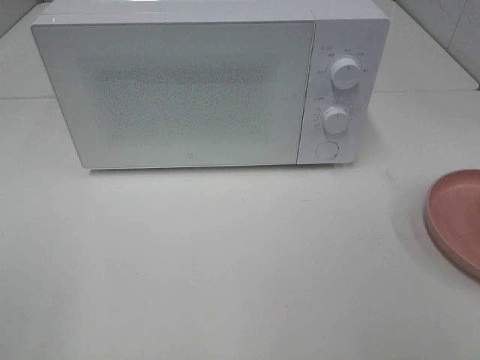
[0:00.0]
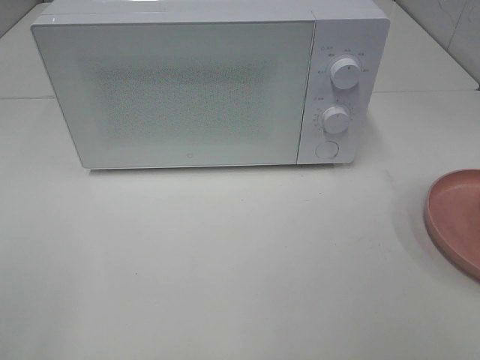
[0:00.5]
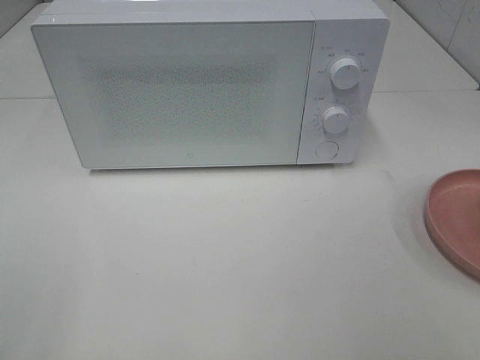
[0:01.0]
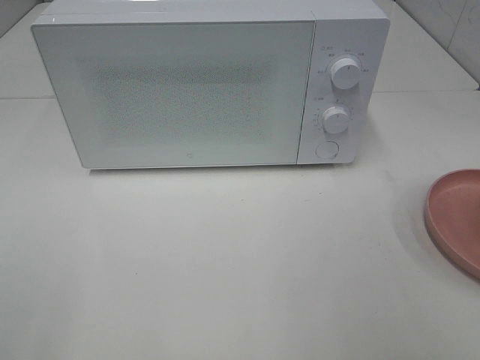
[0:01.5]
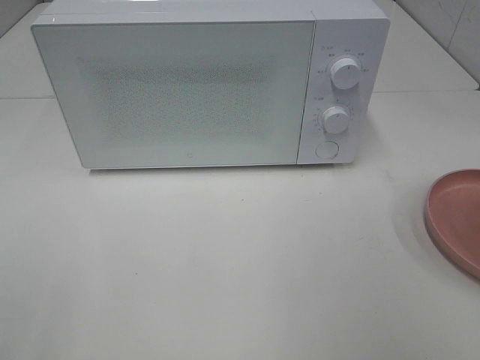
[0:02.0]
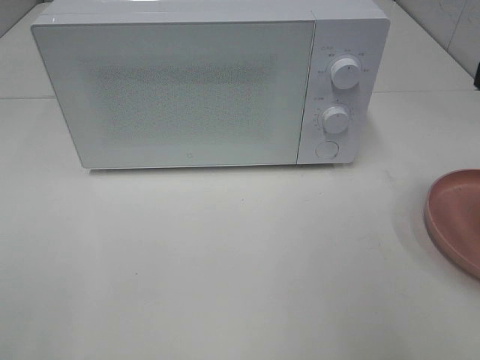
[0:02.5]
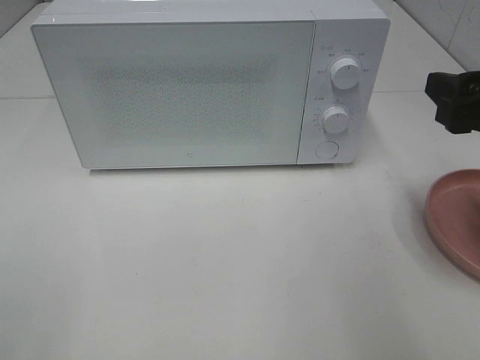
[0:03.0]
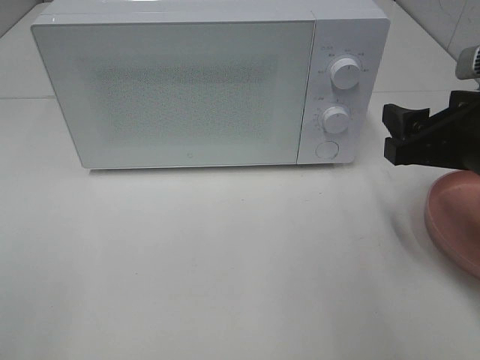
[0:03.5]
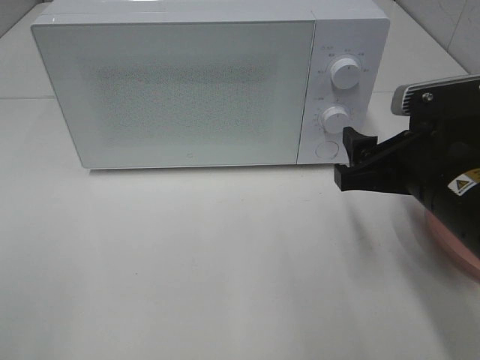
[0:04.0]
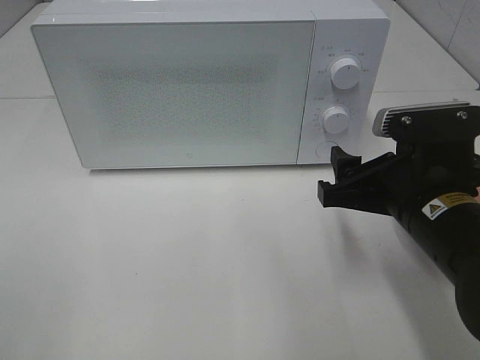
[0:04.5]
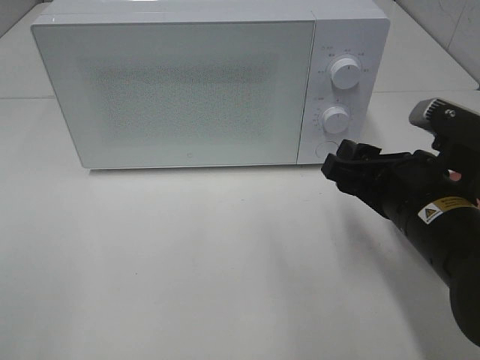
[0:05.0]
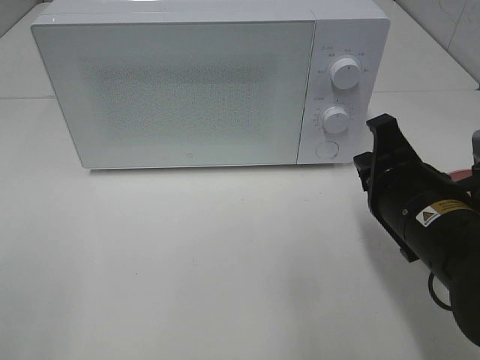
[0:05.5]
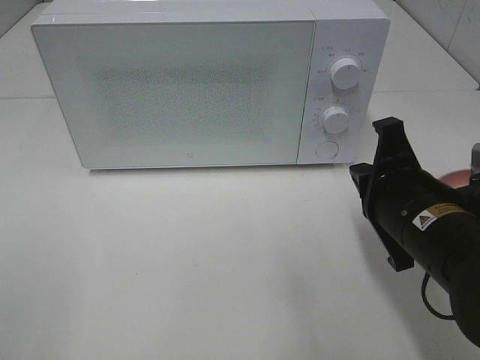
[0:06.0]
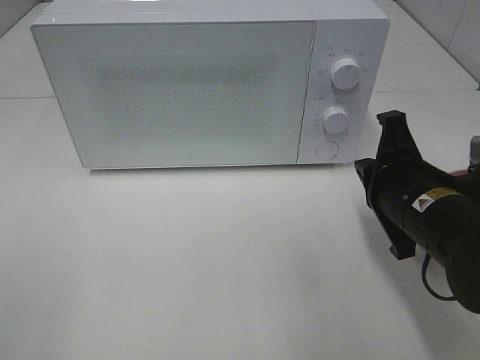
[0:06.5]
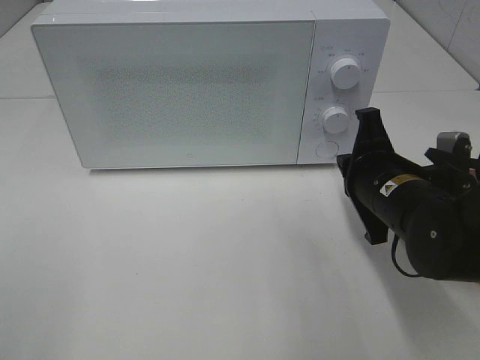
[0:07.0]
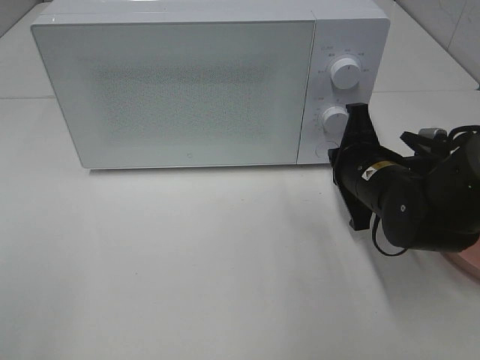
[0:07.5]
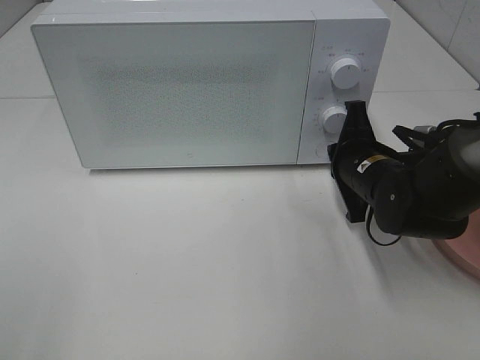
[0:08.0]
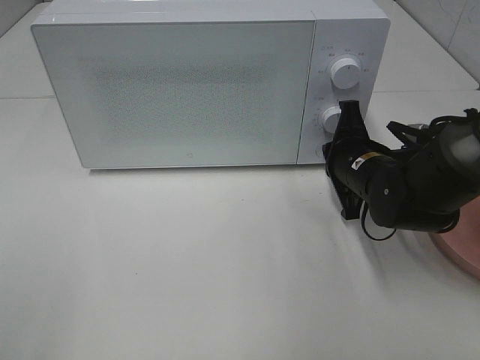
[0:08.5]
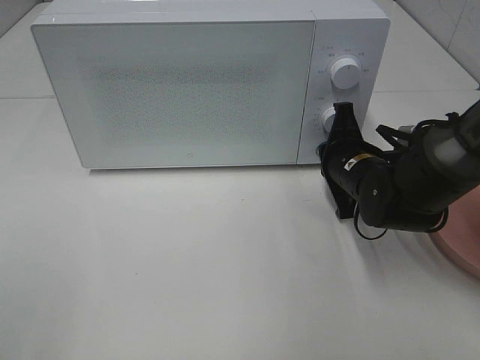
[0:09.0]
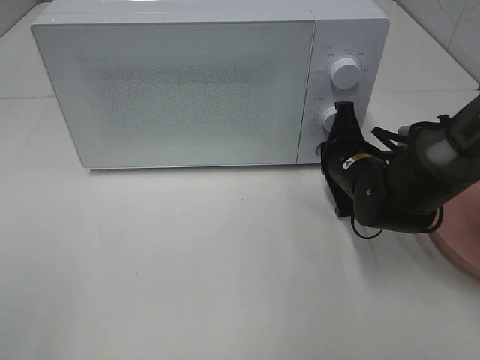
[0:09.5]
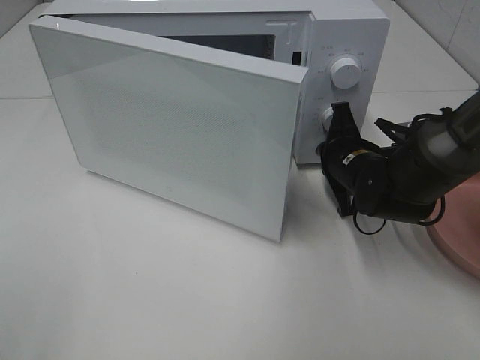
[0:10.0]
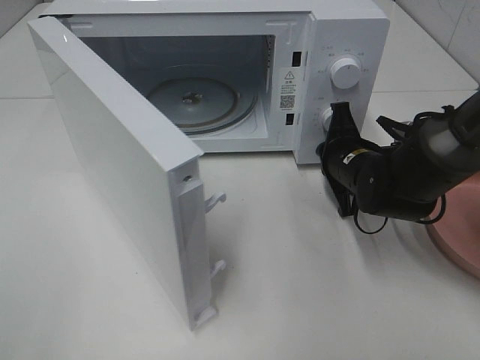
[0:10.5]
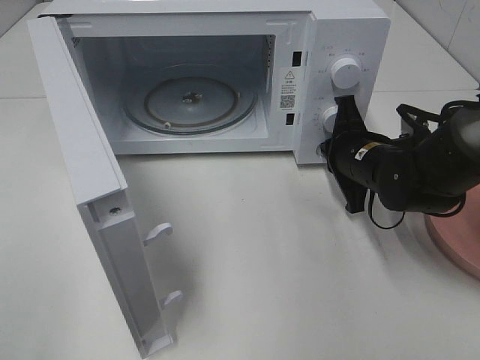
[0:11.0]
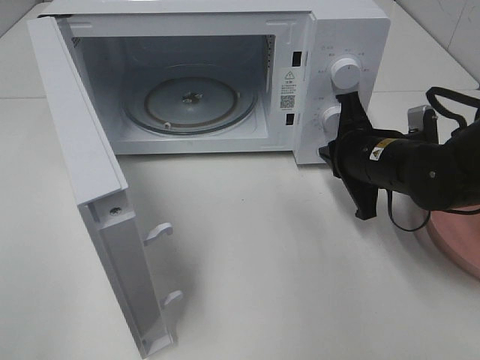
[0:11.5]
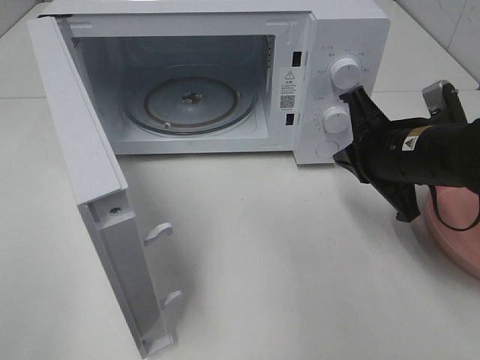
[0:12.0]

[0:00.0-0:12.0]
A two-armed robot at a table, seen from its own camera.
Task of the whole recording: Heat the burger.
Step, 0:00.0 to 0:11.0: Right hand: press the switch.
0:02.0 to 0:04.0: The right gripper shifts about 20 cm downward, forward and to the left.
0:04.0 to 0:06.0: The right gripper closes its fingers.
0:06.0 to 0:08.0: The right gripper goes approximately 15 cm forward and downward.
0:08.0 to 0:10.0: There are only small adjustments of the grippers.
0:10.0 to 0:12.0: The right gripper shifts about 10 cm upward and backward.

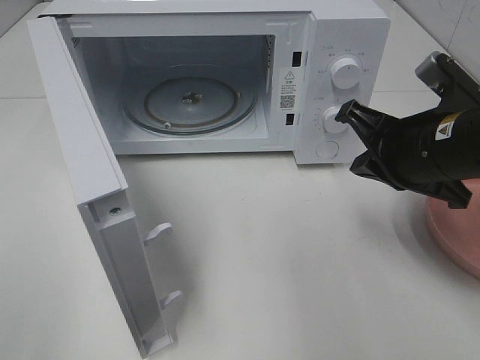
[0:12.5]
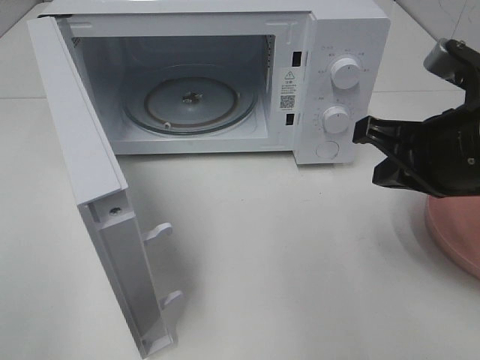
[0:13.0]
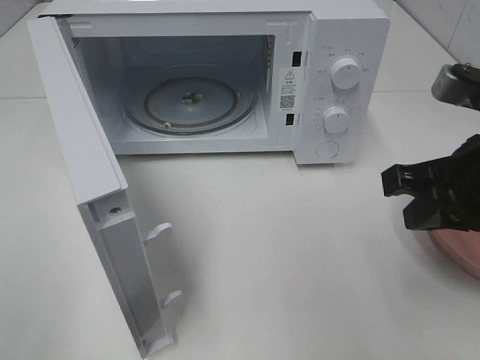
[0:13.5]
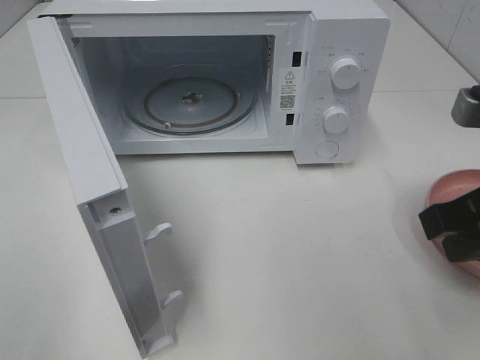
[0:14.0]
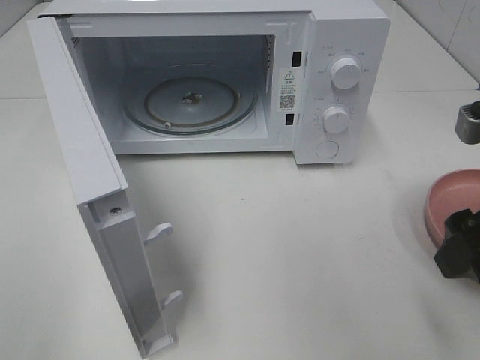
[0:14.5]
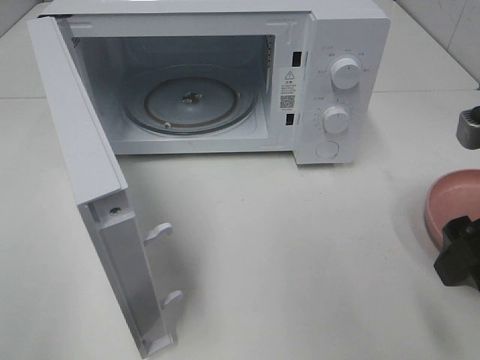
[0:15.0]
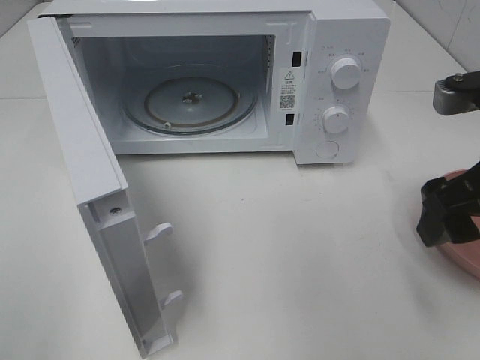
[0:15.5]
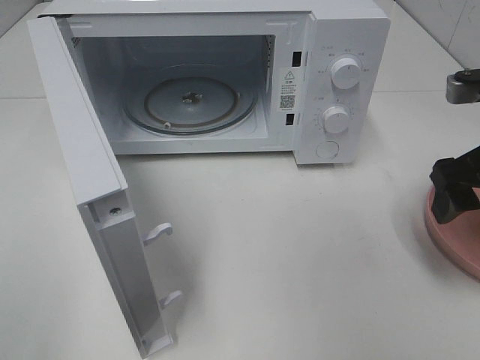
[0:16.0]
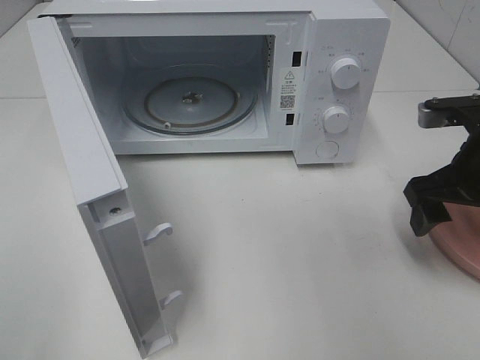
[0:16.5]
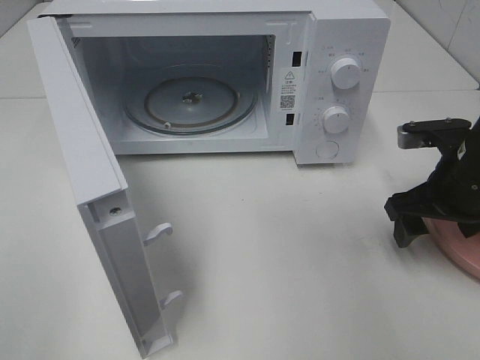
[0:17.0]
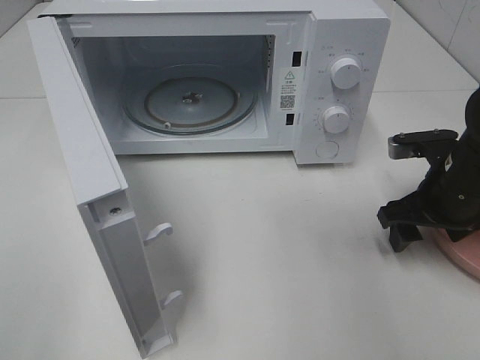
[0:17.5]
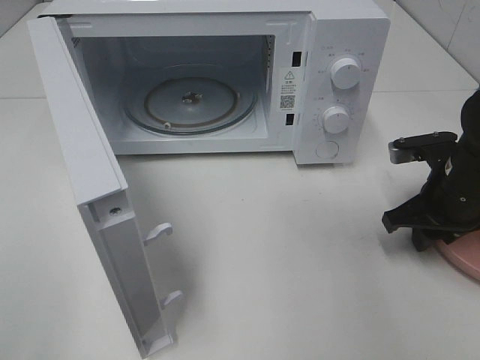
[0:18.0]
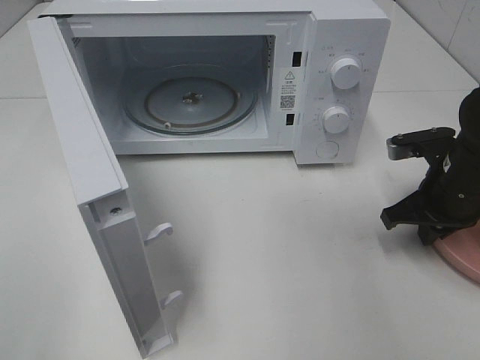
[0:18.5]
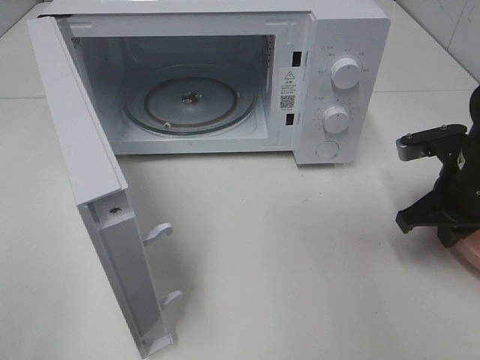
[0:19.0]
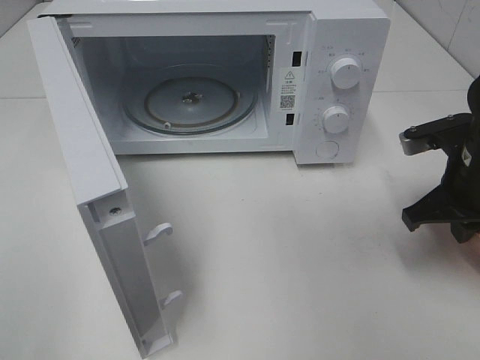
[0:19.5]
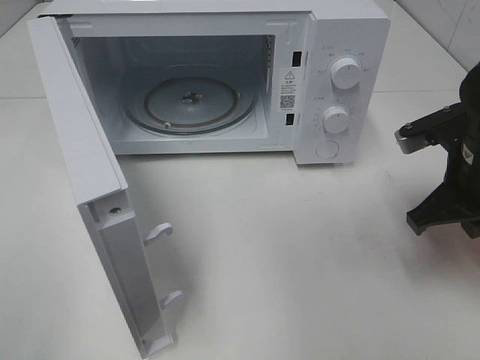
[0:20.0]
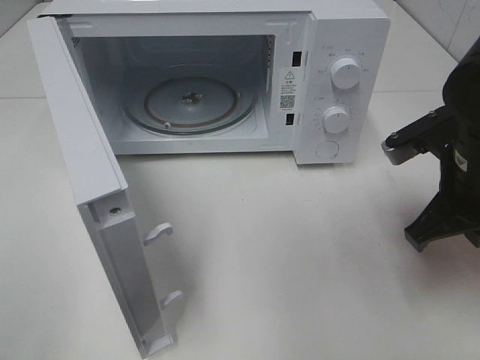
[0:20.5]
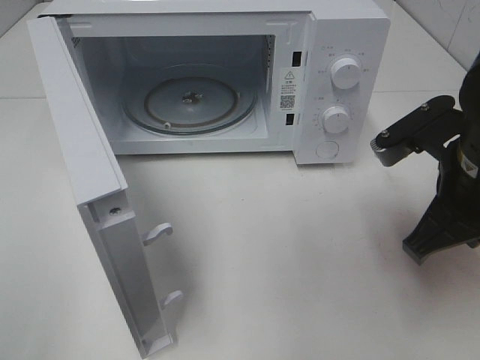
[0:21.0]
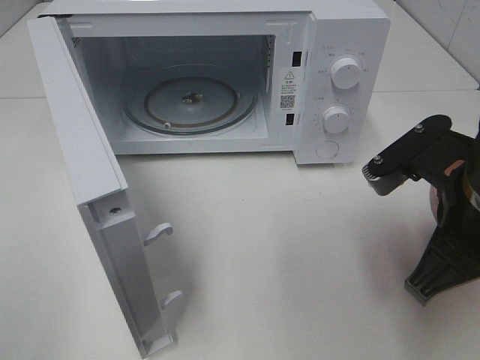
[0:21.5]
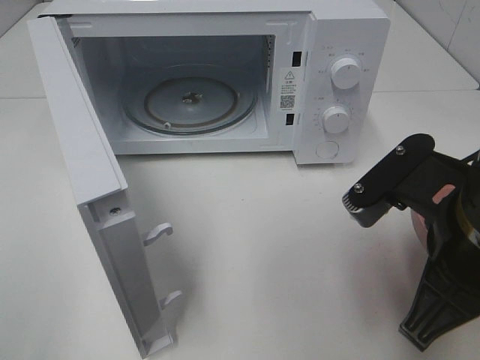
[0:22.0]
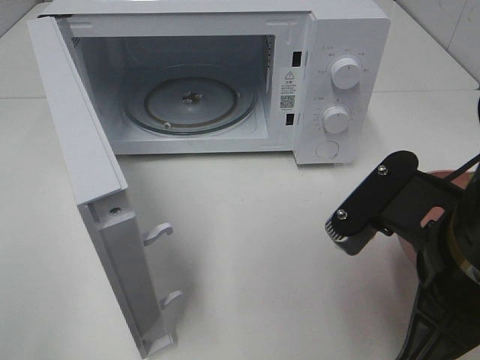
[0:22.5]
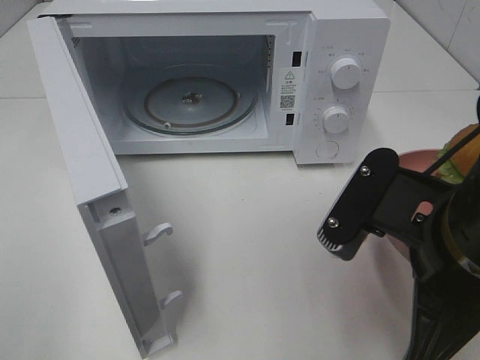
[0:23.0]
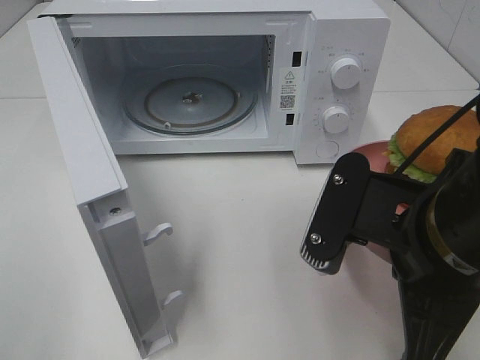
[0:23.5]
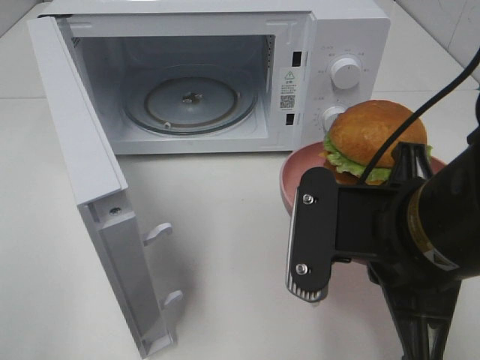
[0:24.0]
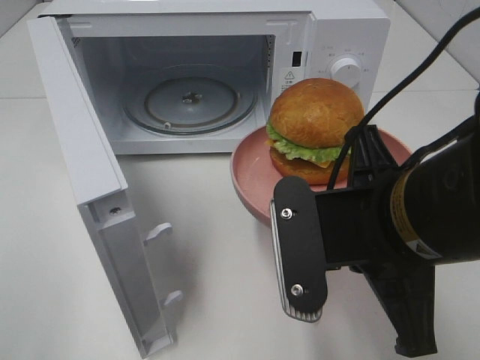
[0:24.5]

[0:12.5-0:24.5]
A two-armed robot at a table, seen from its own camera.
Task of the whole recording: Heat the burger.
Step, 0:12.5 to 0:18.5: Right hand: grab the plate with the hamburger.
0:12.5 to 0:14.5: The right gripper is displaced backward by roughly 10 cm, and opens.
0:14.5 to 0:16.5: The right gripper moves forward and downward, about 10 cm.
0:16.5 to 0:18.5: The right gripper is displaced downward by some 5 cm, and closes its fingers.
0:18.5 to 0:20.5: The right gripper moves upward and backward, about 10 cm.
0:20.5 to 0:22.5: The right gripper goes roughly 15 cm backward and to the left.

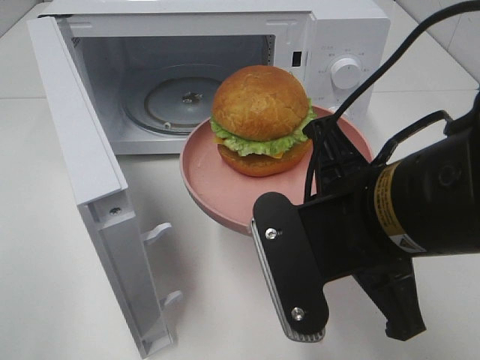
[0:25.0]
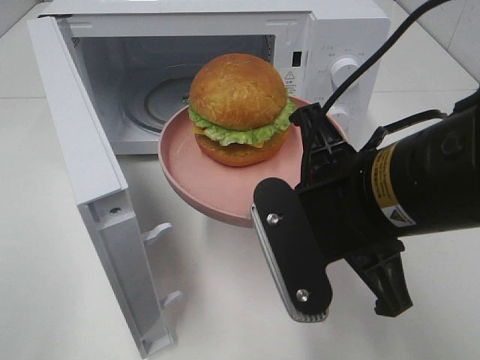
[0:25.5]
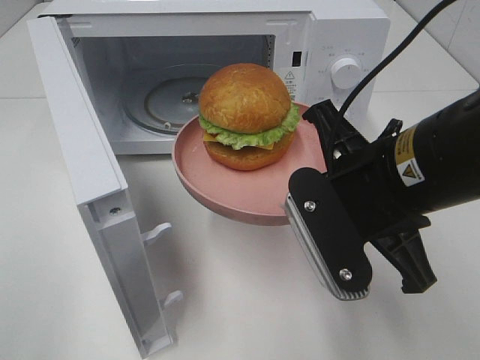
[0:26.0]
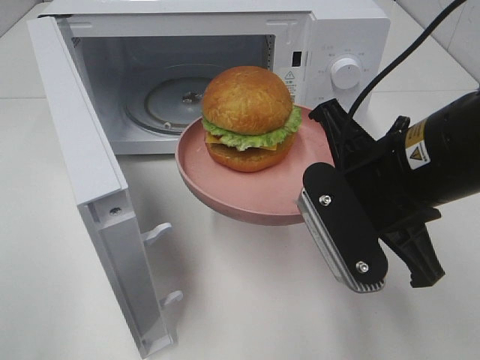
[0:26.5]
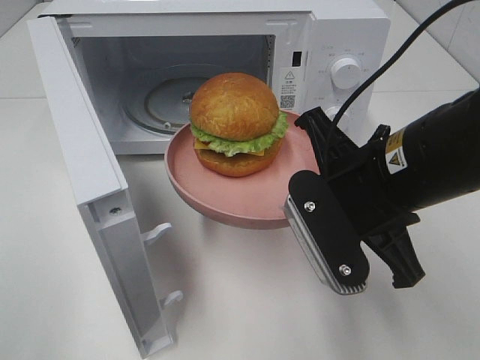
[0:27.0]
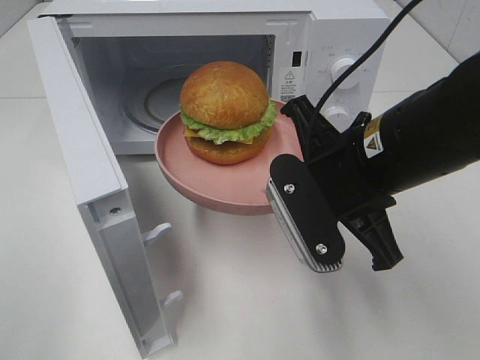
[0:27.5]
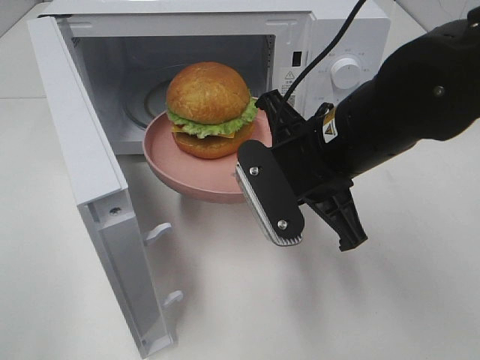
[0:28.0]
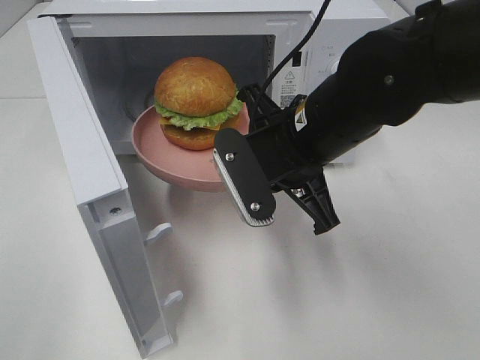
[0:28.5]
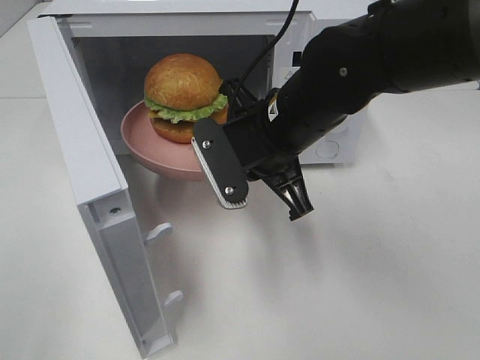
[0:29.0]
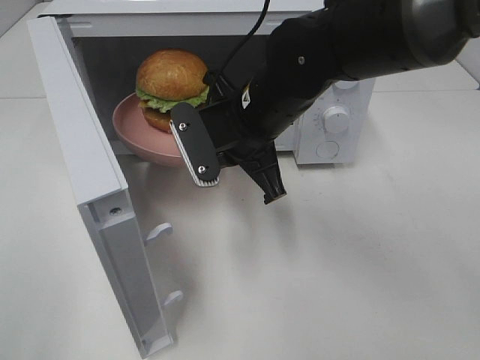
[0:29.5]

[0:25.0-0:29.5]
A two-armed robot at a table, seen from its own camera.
Task of the whole recording: Heat the burger.
0:25.0 to 0:27.0: The right gripper travels forward by about 5 cm.
0:27.0 to 0:29.5: The right gripper is displaced forward and to the left by some 15 cm.
